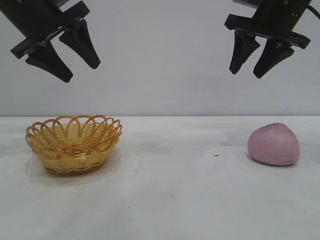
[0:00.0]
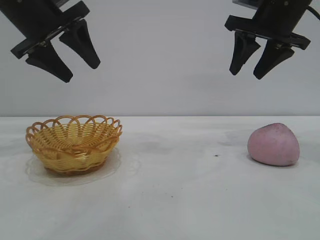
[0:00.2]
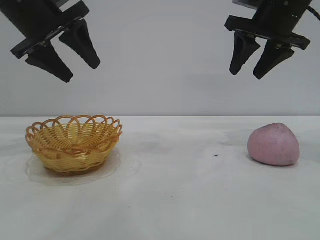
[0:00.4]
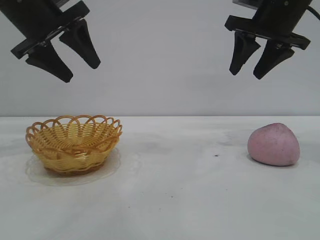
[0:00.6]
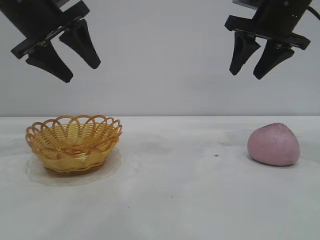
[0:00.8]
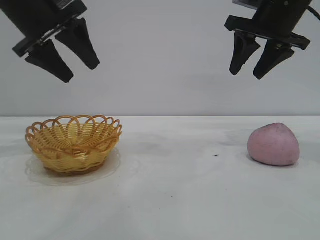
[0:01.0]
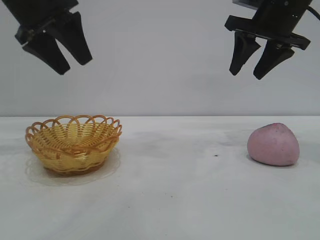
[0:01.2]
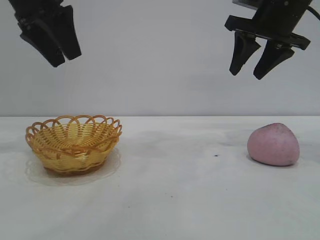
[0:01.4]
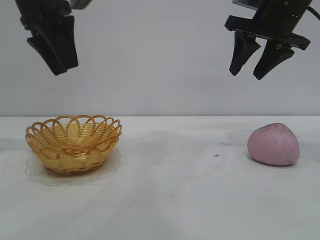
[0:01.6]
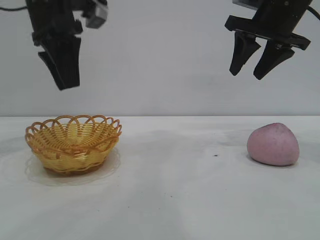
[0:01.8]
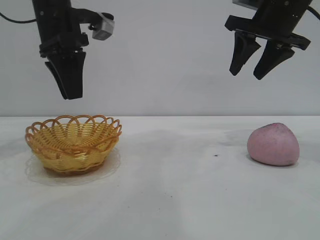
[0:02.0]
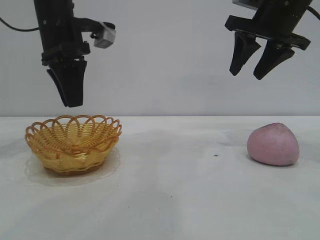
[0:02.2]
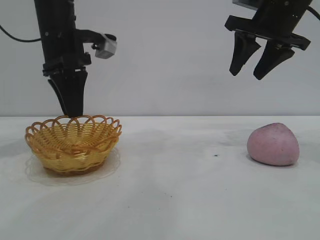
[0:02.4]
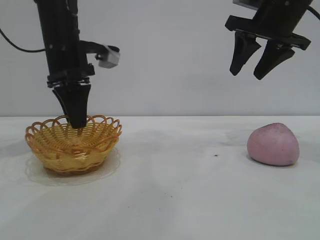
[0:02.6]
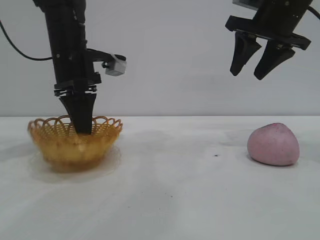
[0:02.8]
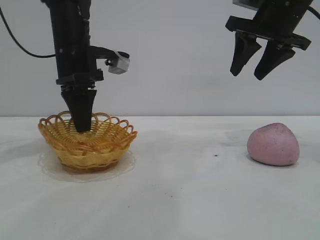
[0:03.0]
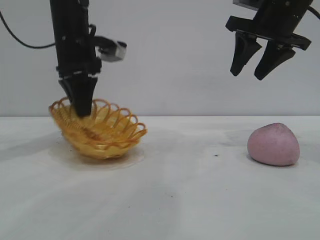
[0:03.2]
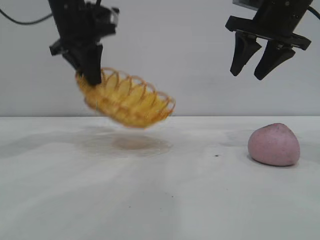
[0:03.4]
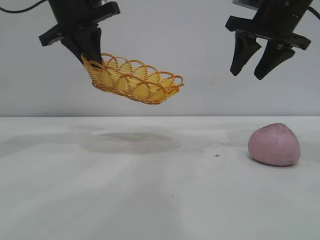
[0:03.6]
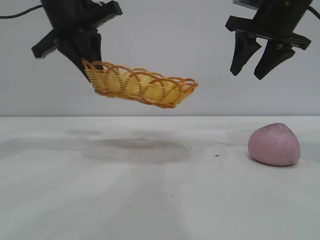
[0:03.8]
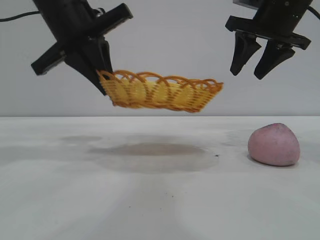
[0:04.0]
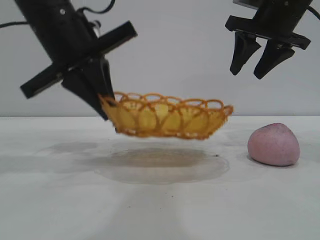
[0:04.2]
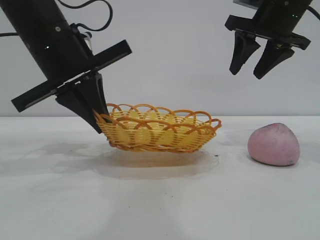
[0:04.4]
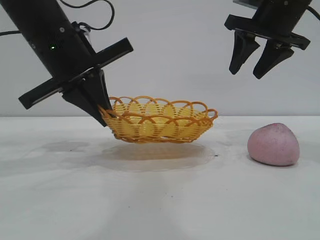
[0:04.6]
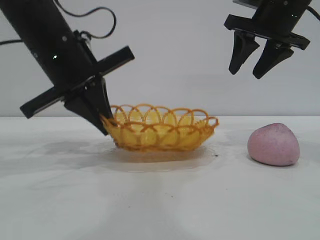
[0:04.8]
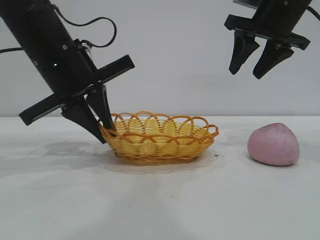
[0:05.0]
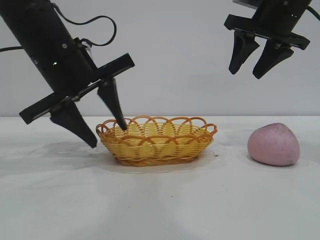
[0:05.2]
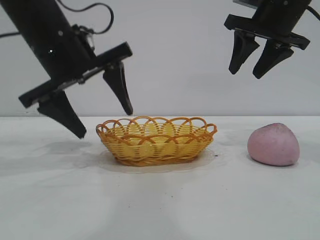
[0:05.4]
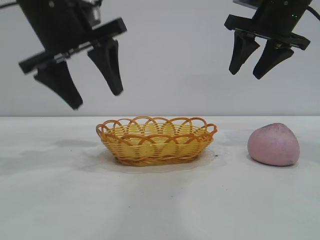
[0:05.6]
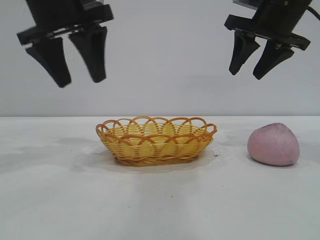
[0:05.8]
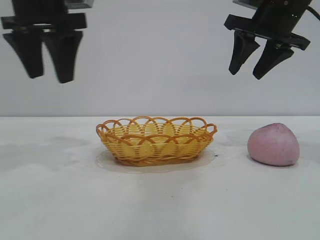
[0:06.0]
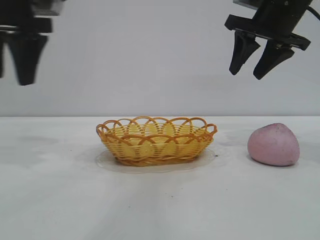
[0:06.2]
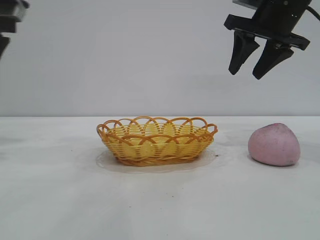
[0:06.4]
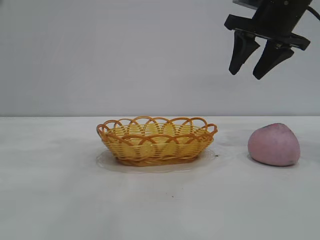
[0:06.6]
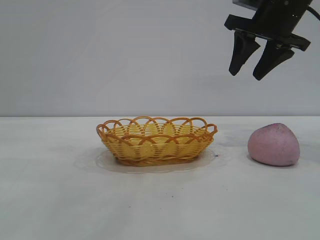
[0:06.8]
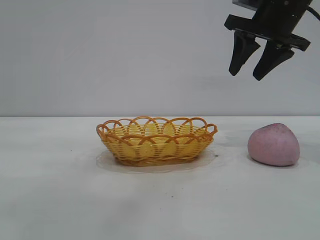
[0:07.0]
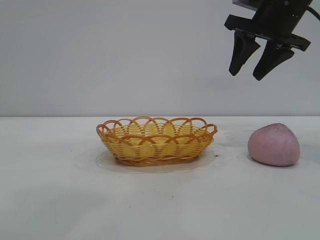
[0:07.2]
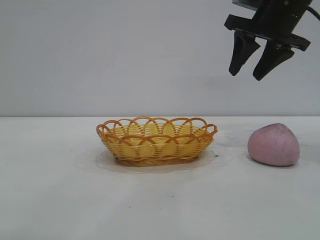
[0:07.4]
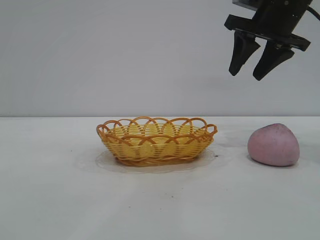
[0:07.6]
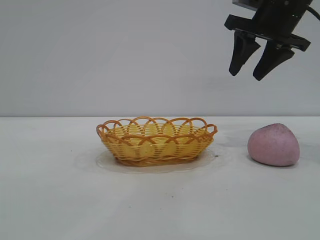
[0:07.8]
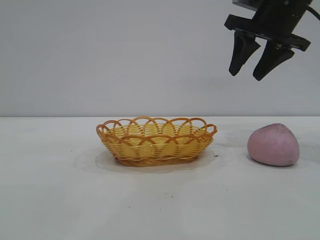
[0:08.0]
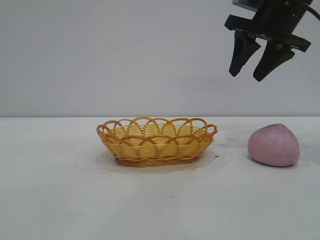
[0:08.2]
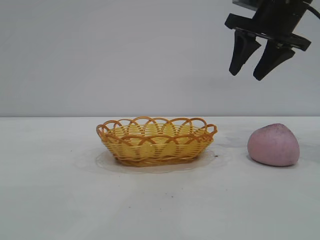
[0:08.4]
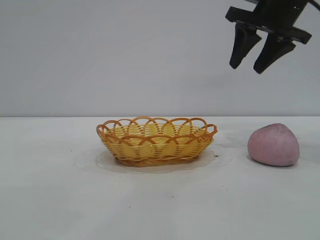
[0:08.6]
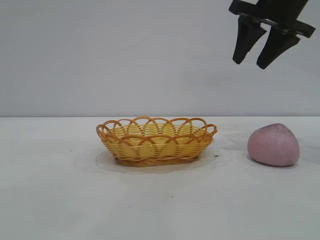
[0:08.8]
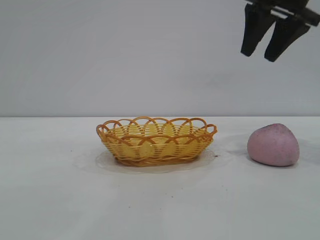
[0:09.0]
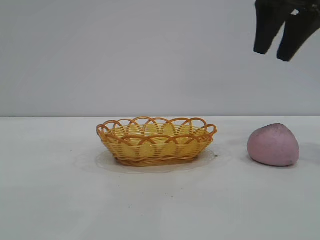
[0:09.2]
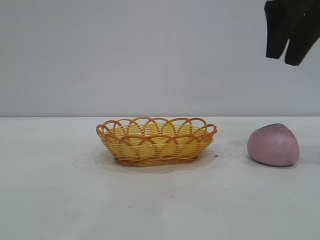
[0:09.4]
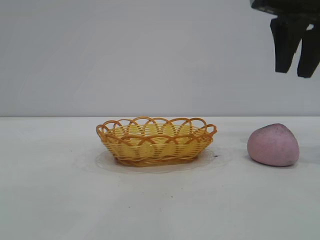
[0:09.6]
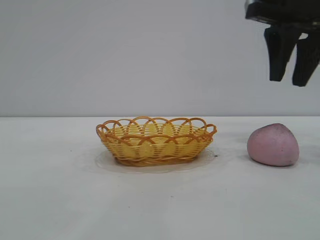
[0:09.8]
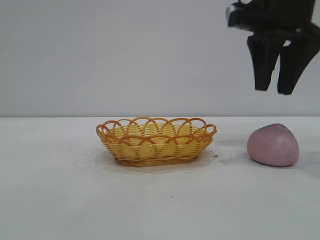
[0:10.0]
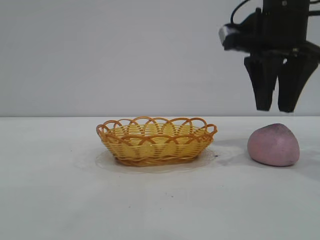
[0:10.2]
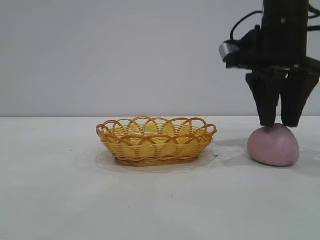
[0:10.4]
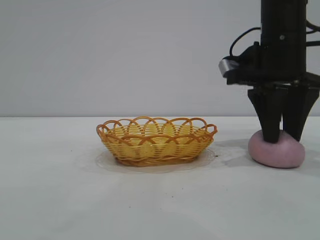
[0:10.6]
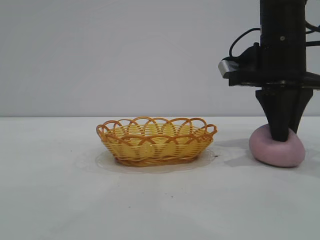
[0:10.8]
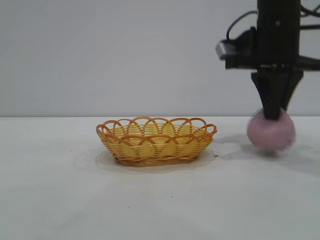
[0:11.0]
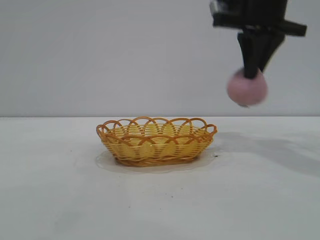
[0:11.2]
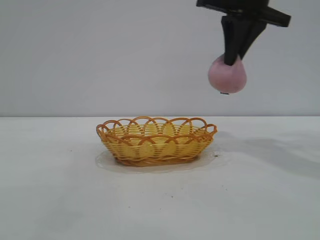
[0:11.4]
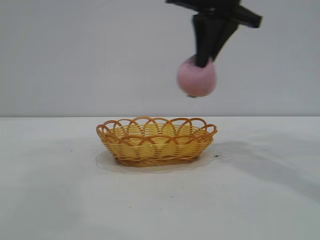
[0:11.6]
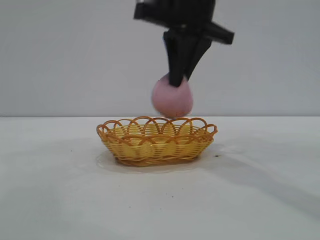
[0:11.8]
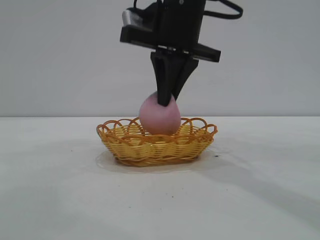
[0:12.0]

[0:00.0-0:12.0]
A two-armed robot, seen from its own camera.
Task of the whole recording: pick up the peach and put it into the basket.
Step, 0:00.0 to 0:05.6: Move the basket to the center of view.
Step, 0:05.8 to 0:11.0: Pick up the peach.

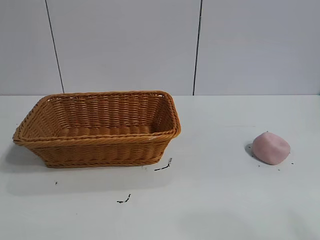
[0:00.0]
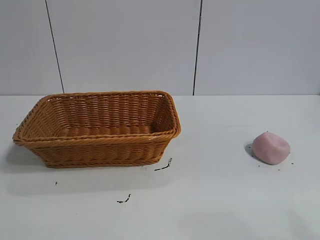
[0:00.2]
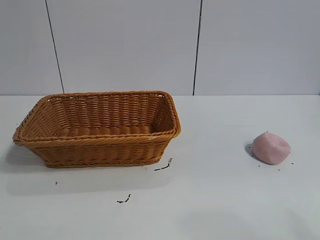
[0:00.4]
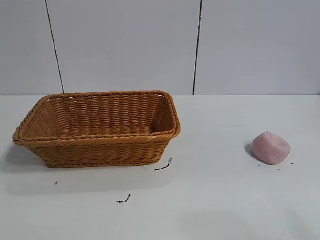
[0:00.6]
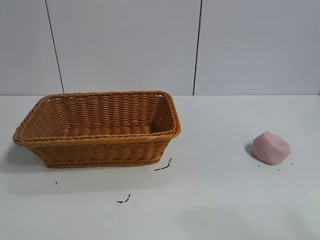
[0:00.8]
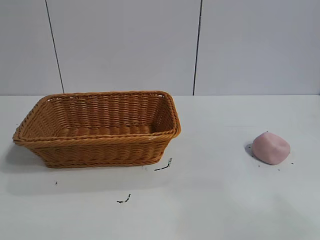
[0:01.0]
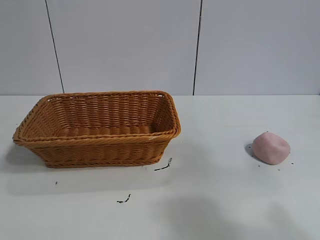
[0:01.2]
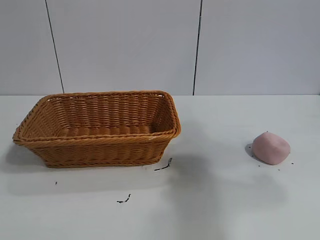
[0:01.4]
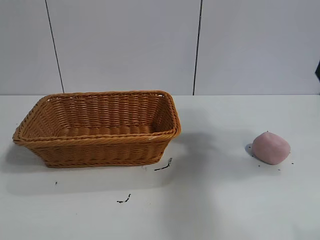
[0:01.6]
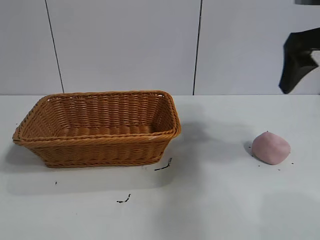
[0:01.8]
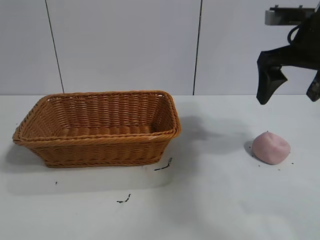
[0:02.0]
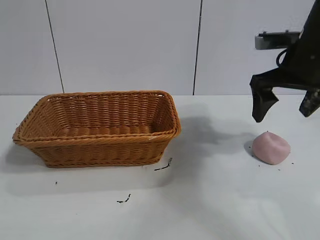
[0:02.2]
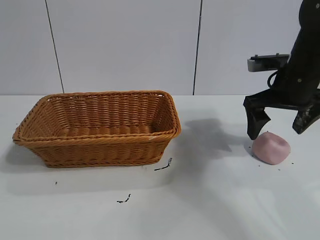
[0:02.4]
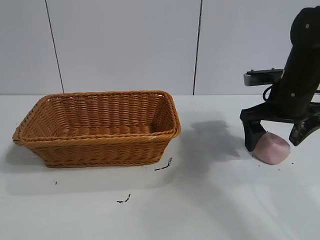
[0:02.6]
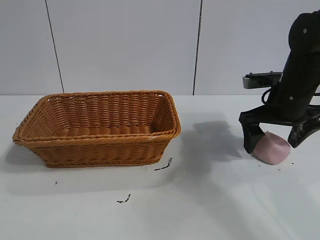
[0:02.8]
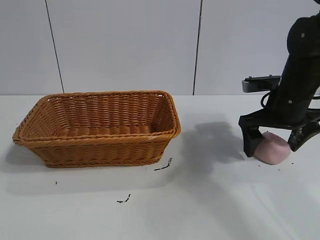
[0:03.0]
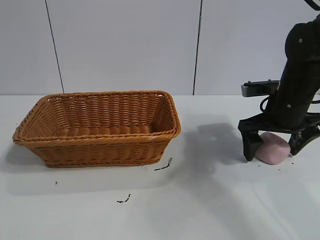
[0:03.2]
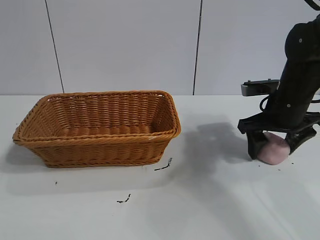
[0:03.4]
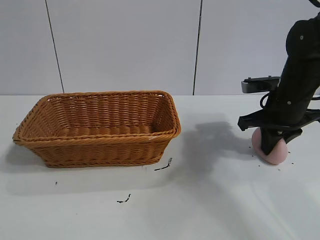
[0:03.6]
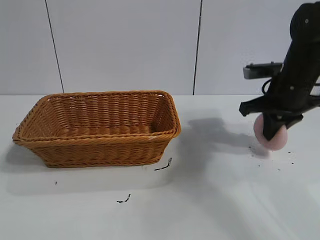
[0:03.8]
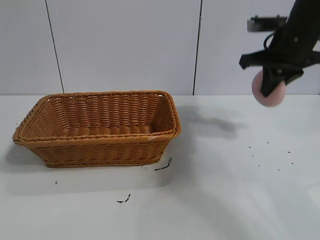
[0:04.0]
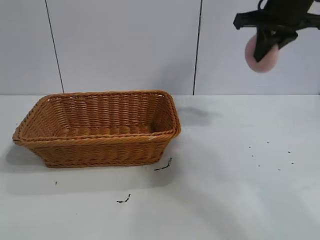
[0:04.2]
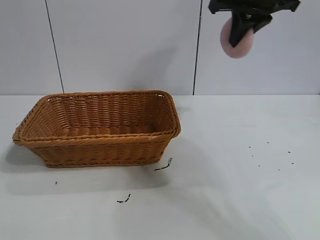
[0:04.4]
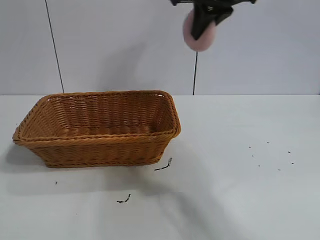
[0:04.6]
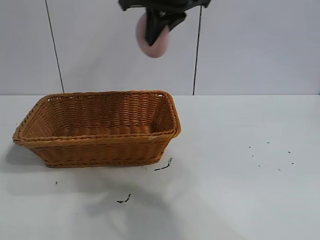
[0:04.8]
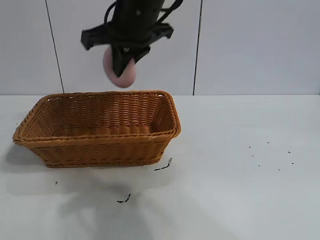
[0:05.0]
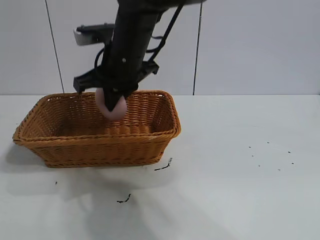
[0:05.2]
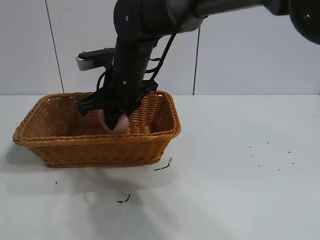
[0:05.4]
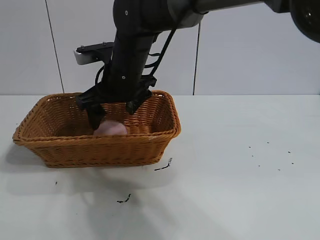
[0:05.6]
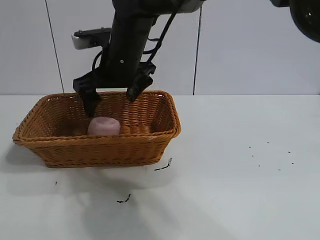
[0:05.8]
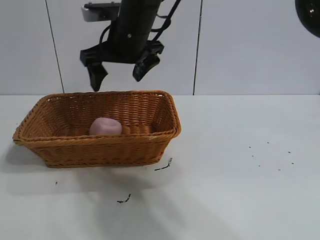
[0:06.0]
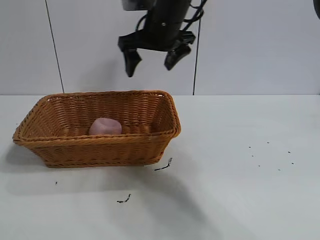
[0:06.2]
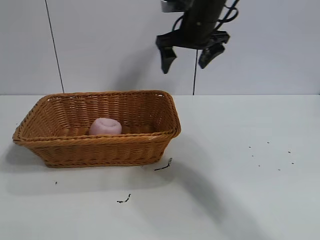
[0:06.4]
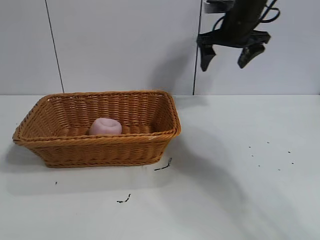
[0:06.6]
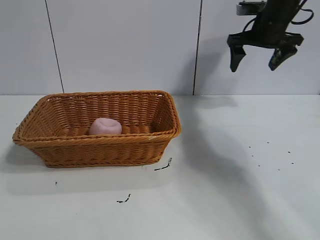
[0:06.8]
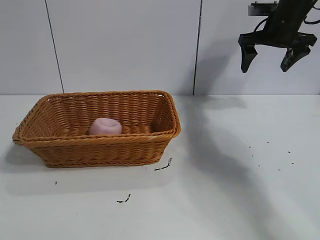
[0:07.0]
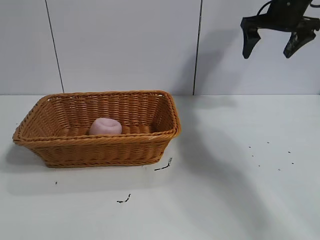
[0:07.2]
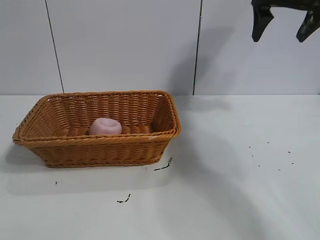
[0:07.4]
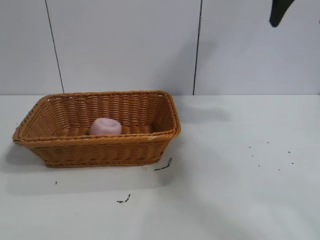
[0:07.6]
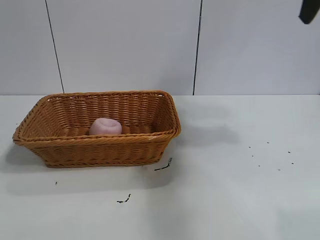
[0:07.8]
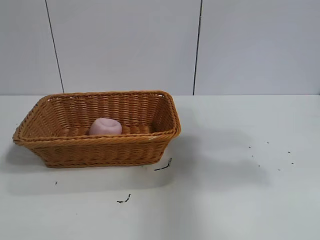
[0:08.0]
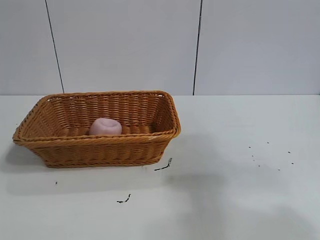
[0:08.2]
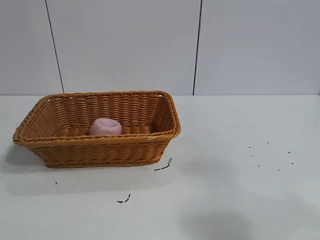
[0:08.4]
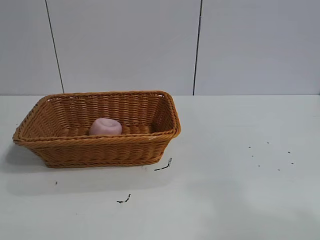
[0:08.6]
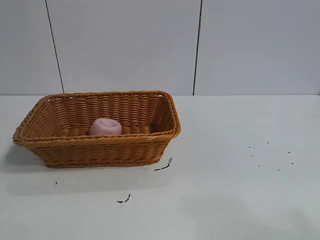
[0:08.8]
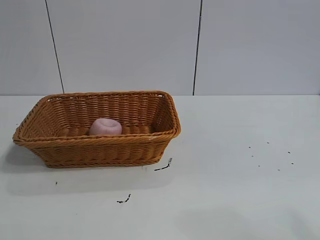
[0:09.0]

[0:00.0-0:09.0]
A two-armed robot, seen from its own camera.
Task of the whole recording: pick up the peach and put it into the basket.
Step, 0:00.8 to 0:03.6: Grasp the peach with right gripper.
Step, 0:03.8 to 0:05.6: Place the peach in the basket with right gripper.

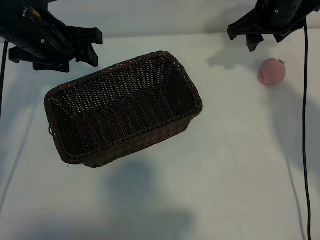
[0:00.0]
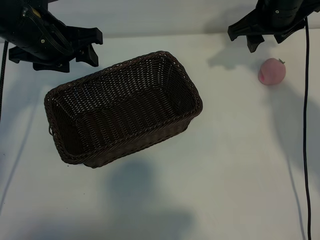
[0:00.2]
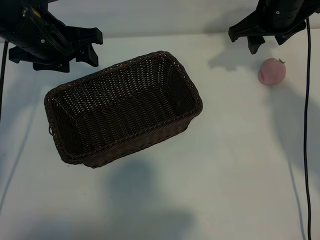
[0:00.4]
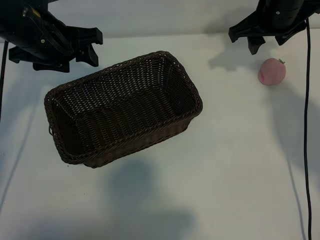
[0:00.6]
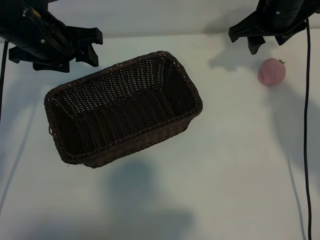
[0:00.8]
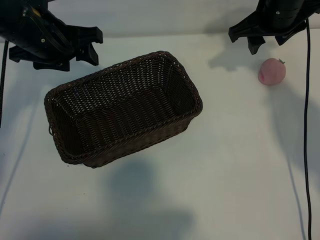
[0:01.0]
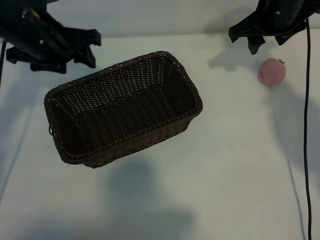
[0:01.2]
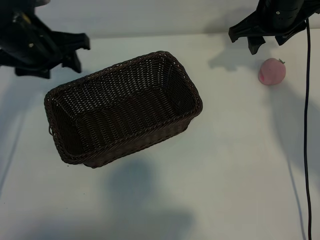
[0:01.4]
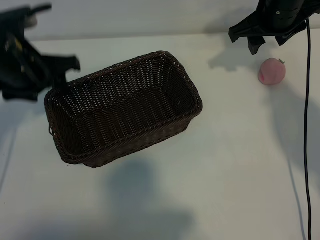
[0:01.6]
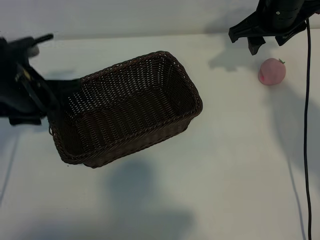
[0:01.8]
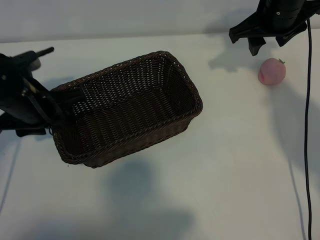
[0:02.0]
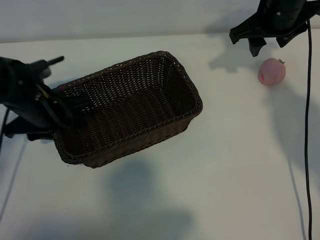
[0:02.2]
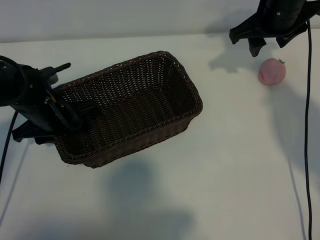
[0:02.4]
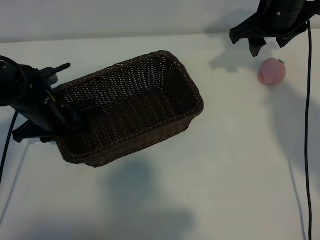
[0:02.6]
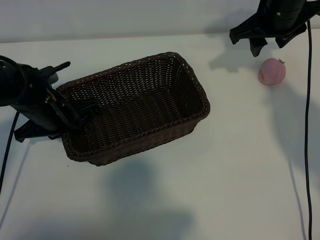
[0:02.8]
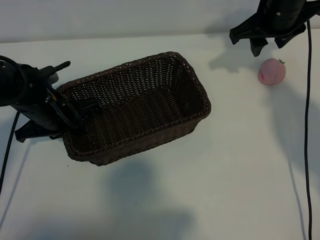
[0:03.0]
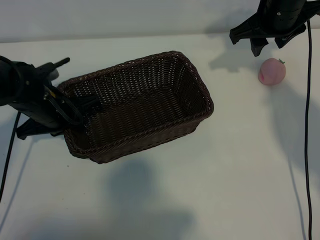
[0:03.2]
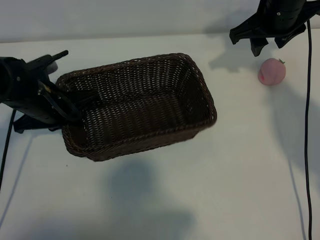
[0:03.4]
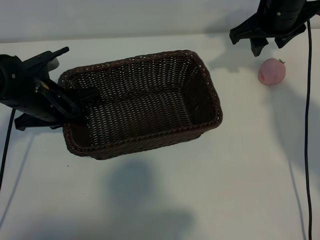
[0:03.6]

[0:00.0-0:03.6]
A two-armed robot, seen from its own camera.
Task of the whole recording: pick up the peach and put it into the basket.
Step, 0:01.0 to 0:02.8: Grasp the basket with left gripper.
